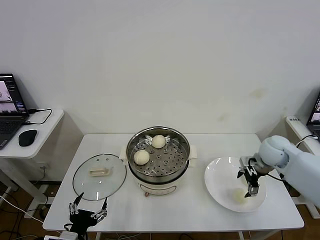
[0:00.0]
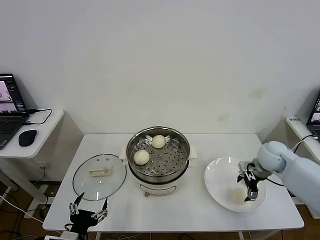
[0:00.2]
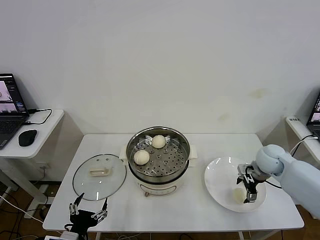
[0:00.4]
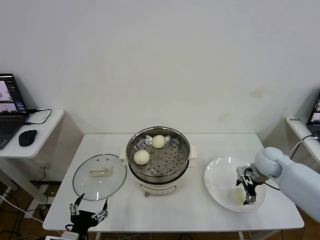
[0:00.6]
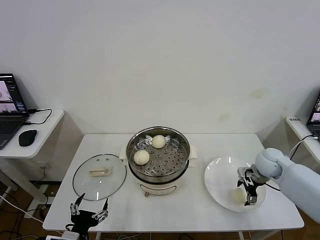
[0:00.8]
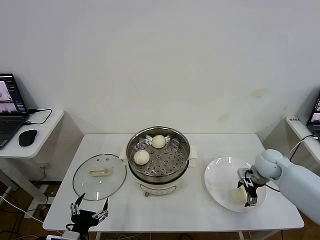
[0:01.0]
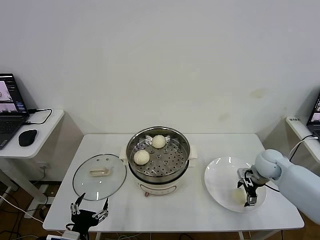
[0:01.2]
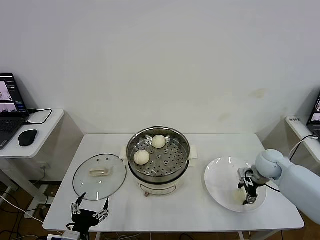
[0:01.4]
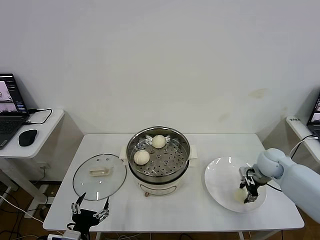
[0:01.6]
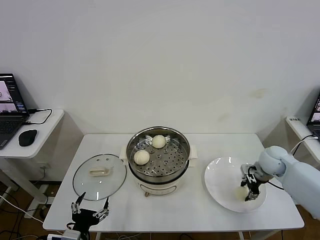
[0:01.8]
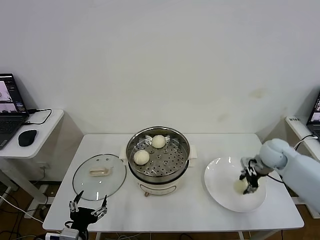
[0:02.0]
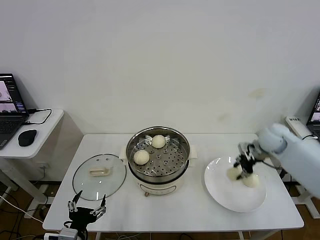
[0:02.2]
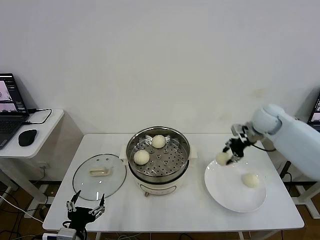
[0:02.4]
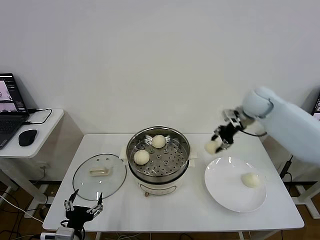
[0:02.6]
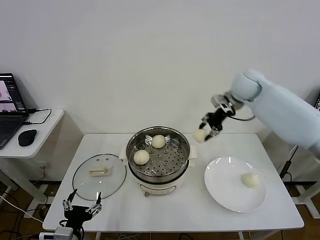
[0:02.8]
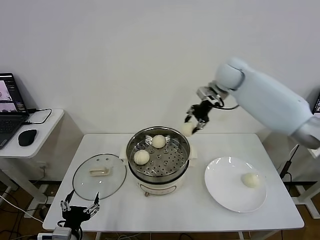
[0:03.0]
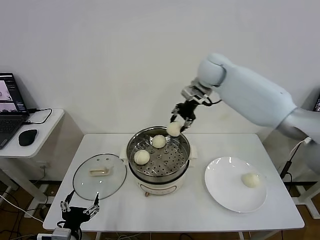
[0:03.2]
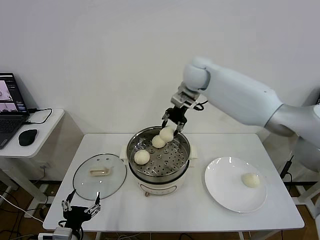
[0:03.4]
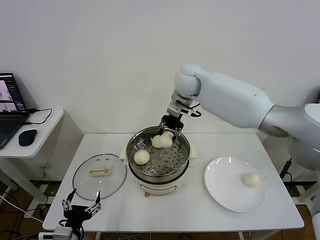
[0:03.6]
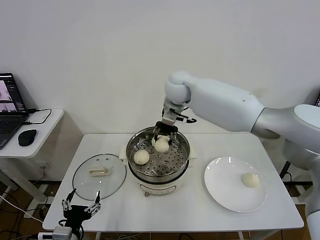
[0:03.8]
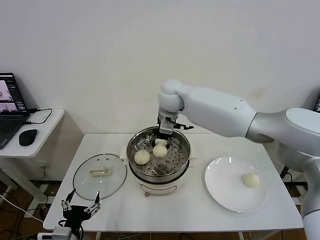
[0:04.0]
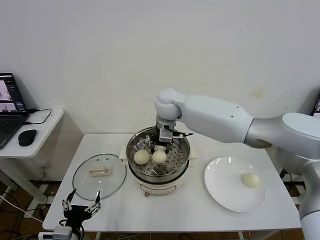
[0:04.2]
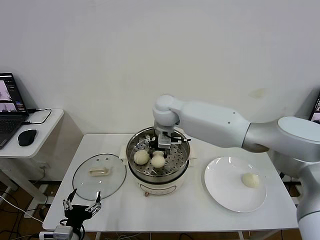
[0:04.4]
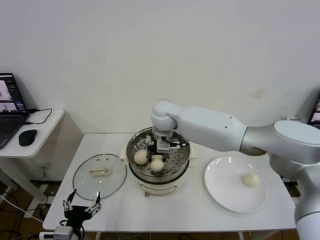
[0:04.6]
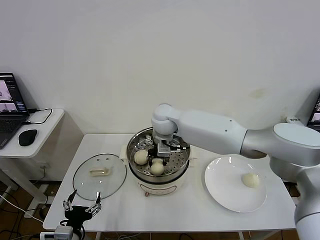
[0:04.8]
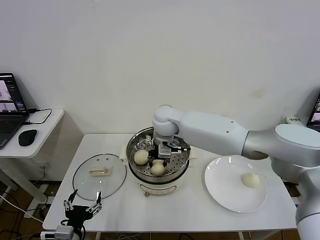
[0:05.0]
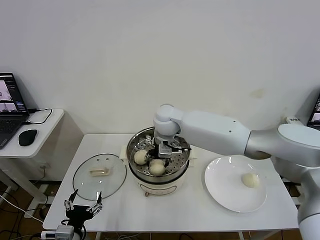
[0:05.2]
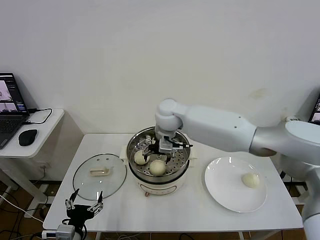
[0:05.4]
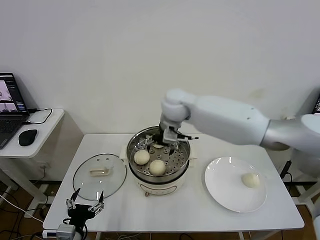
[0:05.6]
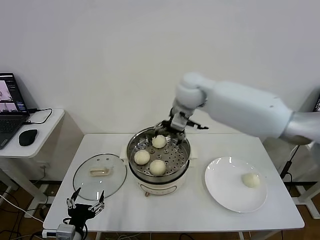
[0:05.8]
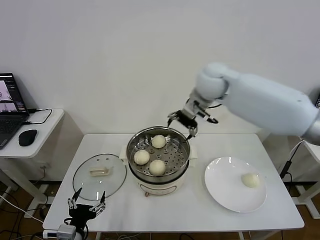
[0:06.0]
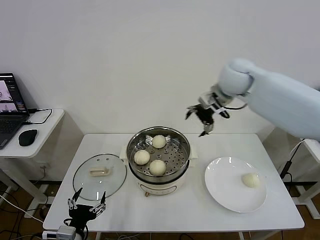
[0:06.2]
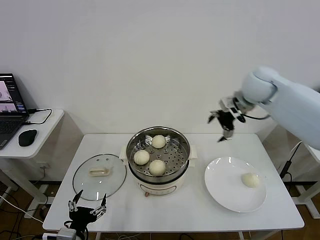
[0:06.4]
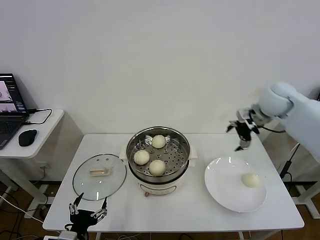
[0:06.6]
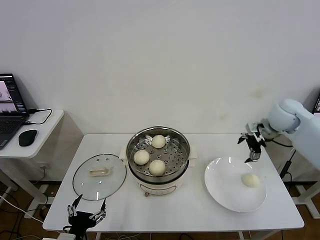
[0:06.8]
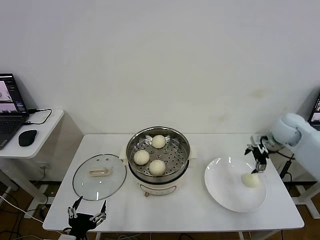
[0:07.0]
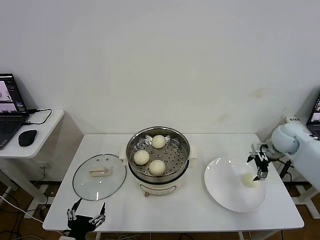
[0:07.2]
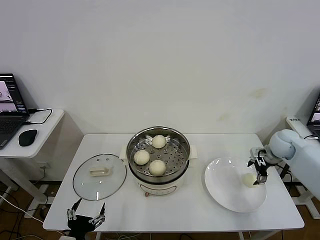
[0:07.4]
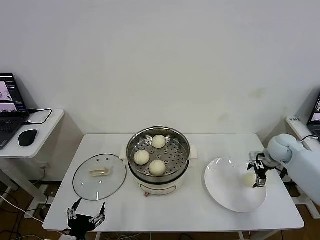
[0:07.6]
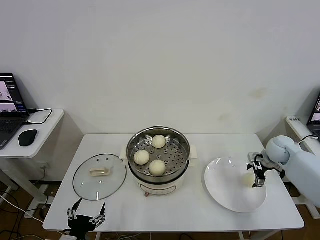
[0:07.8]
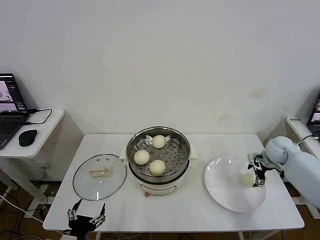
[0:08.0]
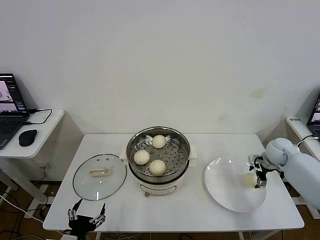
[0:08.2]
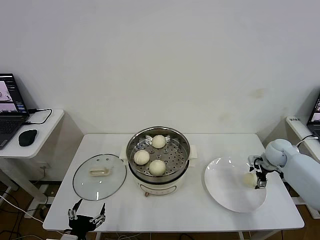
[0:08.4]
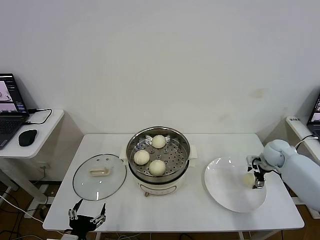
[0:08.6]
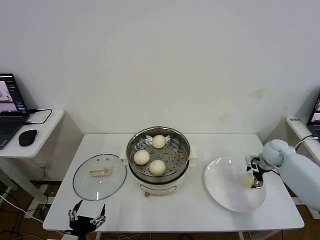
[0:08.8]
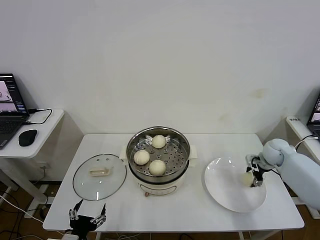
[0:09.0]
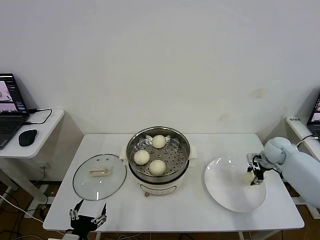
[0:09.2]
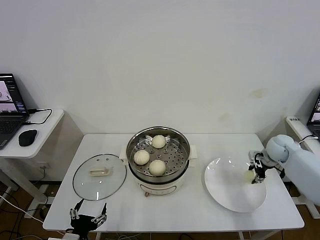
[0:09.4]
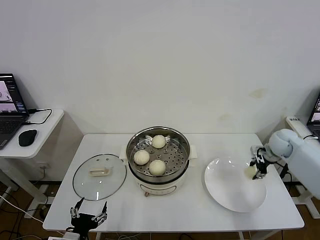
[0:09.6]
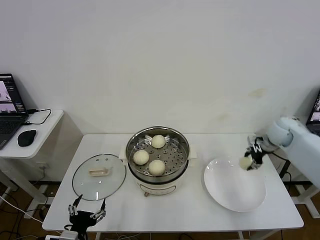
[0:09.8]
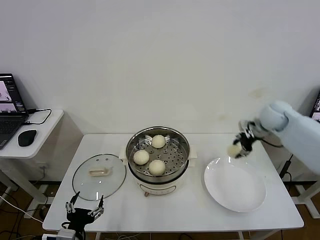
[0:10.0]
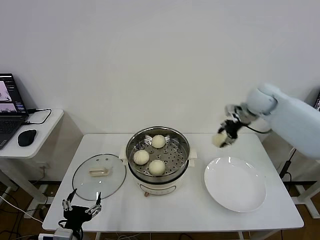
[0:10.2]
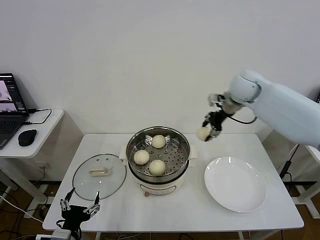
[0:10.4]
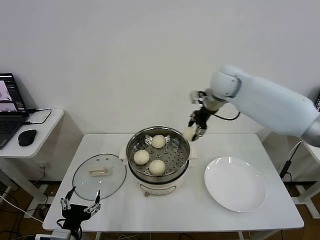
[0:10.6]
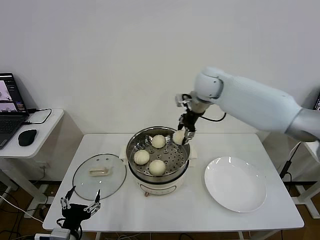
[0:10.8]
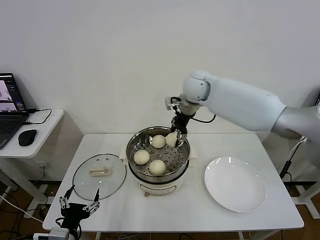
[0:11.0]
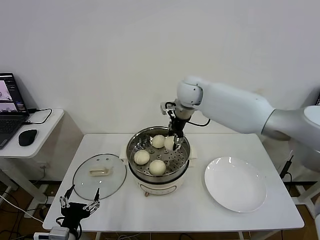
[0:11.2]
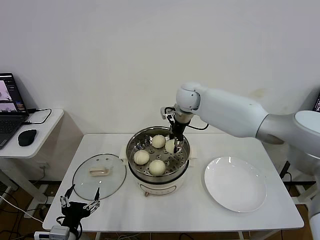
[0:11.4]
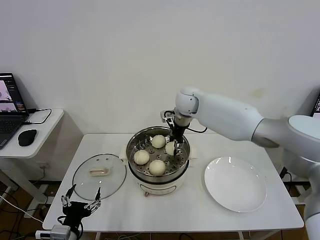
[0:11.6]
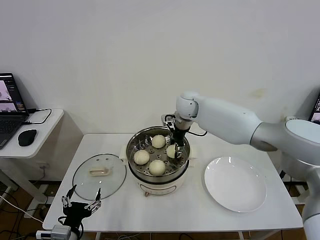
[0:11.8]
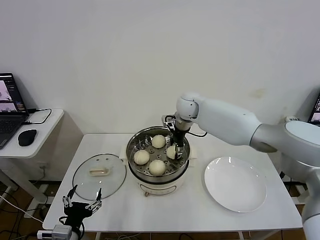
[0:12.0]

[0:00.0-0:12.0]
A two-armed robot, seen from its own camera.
Step, 0:01.8 to 0:05.2: Place the baozi on the steamer with right gripper.
Step, 0:05.4 to 0:09.2: Grasp the baozi in the plate with right gripper.
0:00.0 to 0:01.6: The right gripper closes its fingers.
0:01.6 to 0:03.0: The right gripper moves upward, to the left and forward, some 35 cm.
0:03.0 to 0:04.4: The right gripper heads to the left, downward and backward, covering about 20 cm.
0:04.4 to 0:06.0: The right gripper is displaced to the right and upward by approximately 20 cm, and opens its fingers.
0:06.0 to 0:07.6: The right gripper travels to the right and downward by some 35 cm.
0:07.6 to 0:09.0: The right gripper closes up.
0:09.0 to 0:10.4: The right gripper heads upward and to the left, covering approximately 30 cm.
0:10.4 to 0:12.0: The right gripper travels to the left and downward by some 15 cm, and opens up.

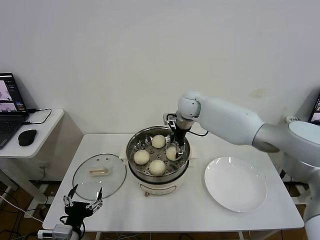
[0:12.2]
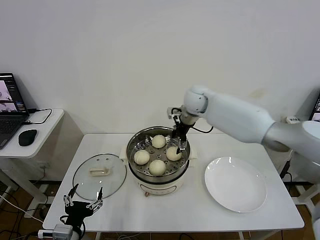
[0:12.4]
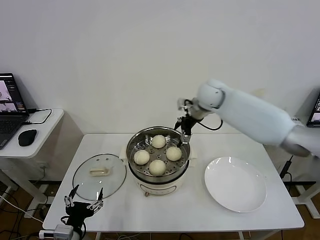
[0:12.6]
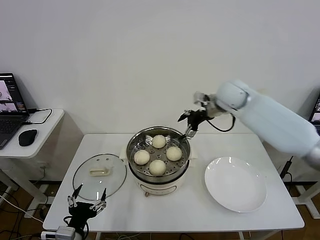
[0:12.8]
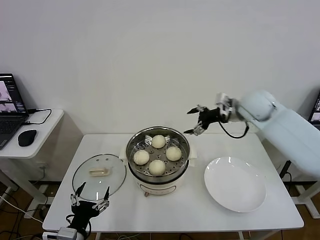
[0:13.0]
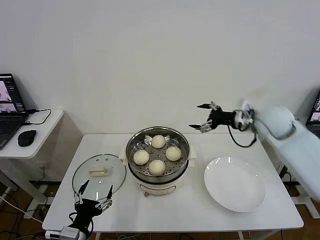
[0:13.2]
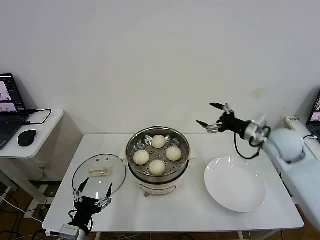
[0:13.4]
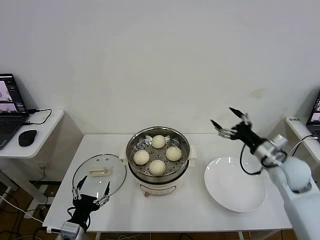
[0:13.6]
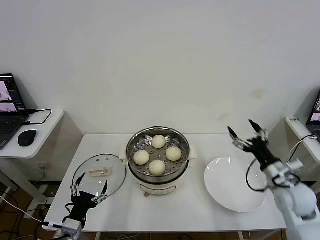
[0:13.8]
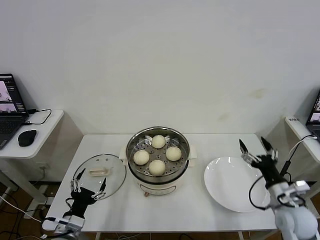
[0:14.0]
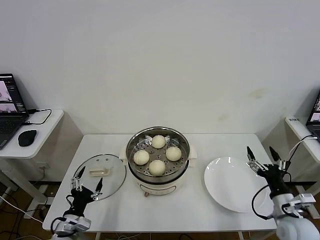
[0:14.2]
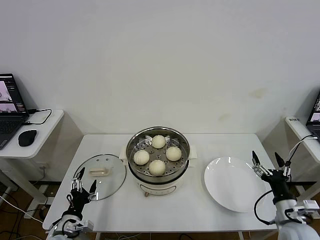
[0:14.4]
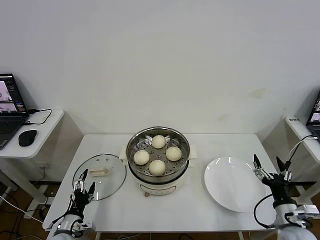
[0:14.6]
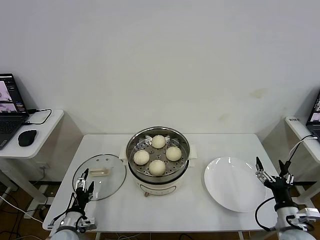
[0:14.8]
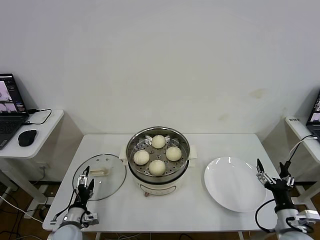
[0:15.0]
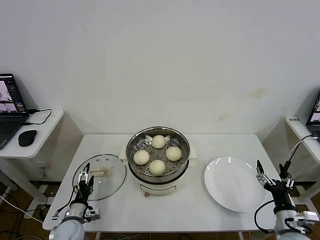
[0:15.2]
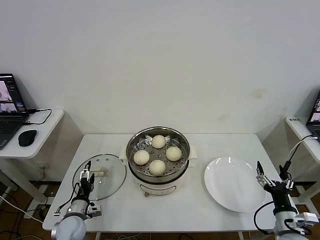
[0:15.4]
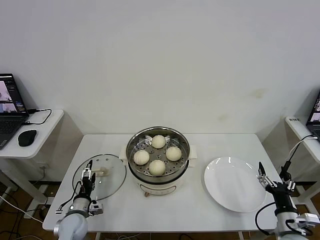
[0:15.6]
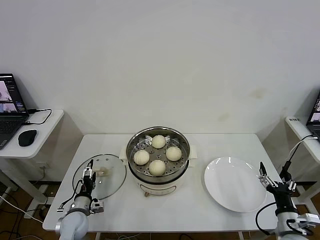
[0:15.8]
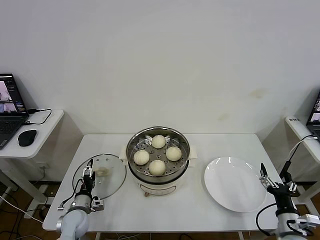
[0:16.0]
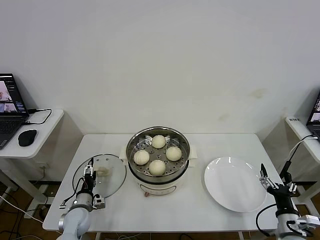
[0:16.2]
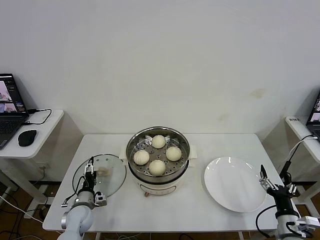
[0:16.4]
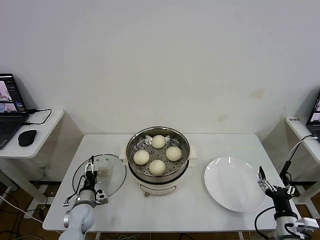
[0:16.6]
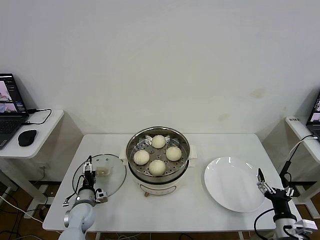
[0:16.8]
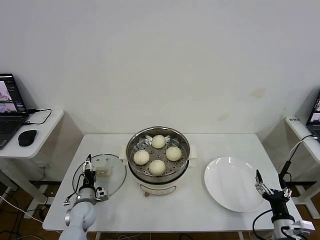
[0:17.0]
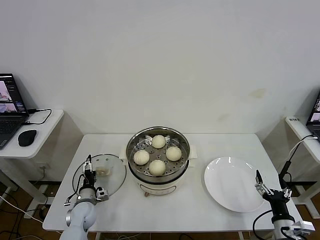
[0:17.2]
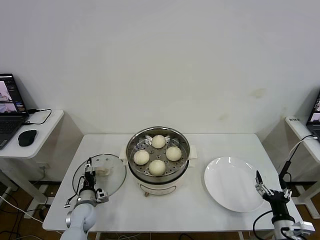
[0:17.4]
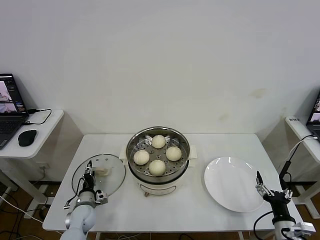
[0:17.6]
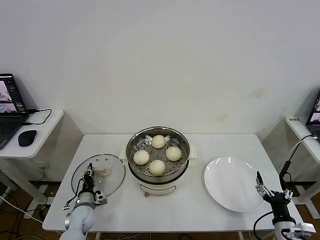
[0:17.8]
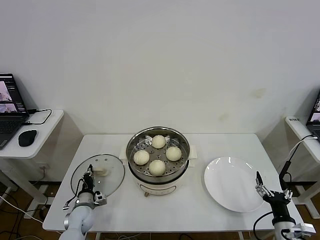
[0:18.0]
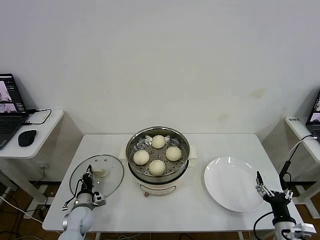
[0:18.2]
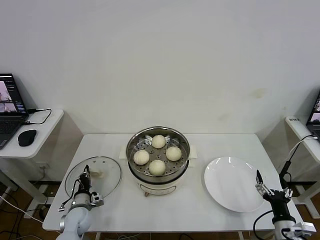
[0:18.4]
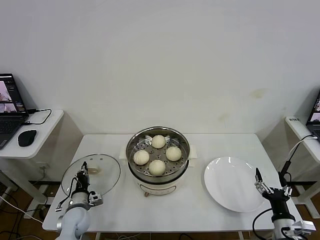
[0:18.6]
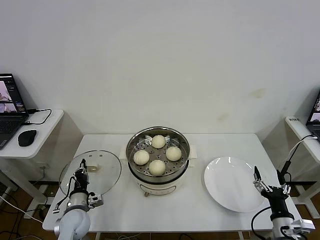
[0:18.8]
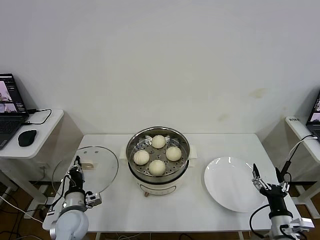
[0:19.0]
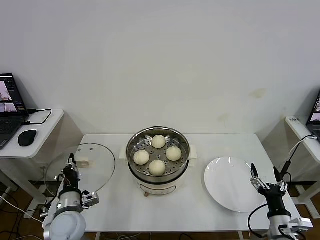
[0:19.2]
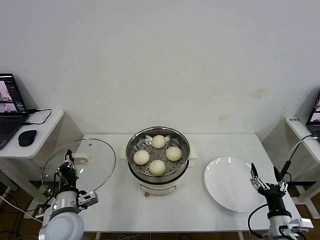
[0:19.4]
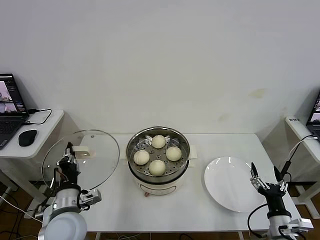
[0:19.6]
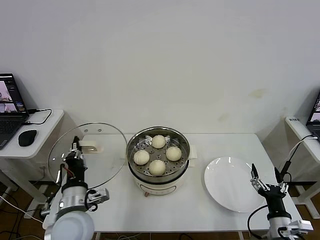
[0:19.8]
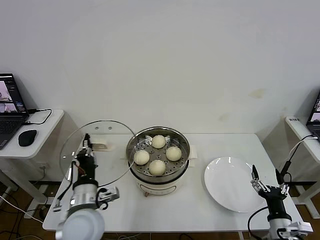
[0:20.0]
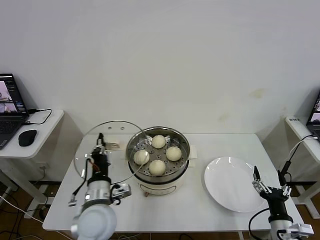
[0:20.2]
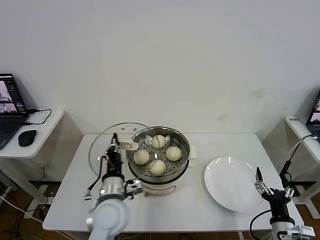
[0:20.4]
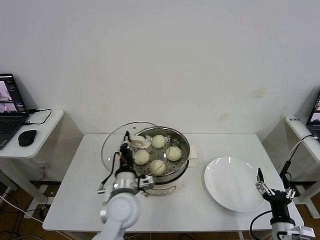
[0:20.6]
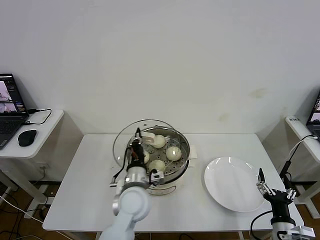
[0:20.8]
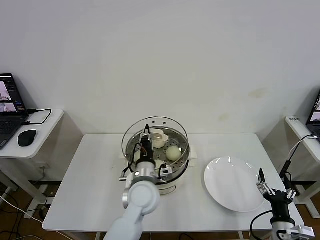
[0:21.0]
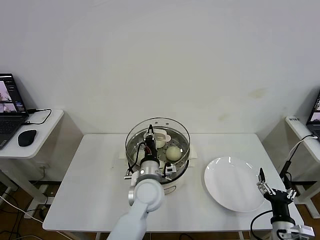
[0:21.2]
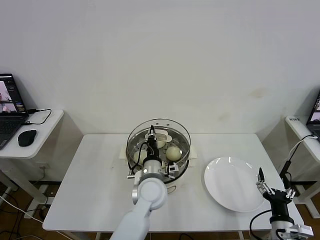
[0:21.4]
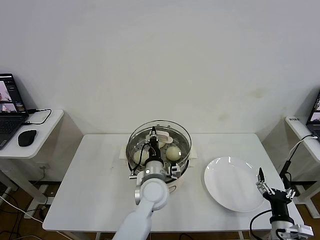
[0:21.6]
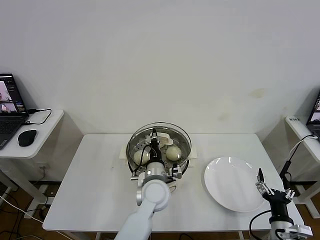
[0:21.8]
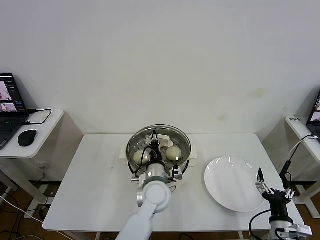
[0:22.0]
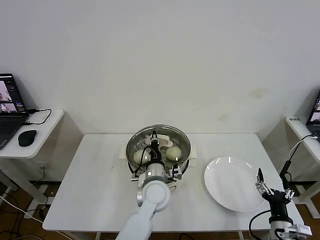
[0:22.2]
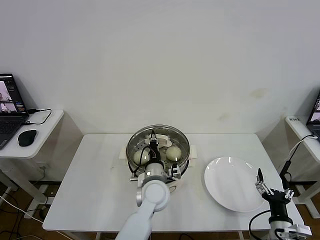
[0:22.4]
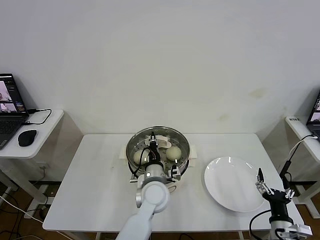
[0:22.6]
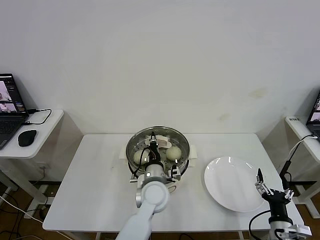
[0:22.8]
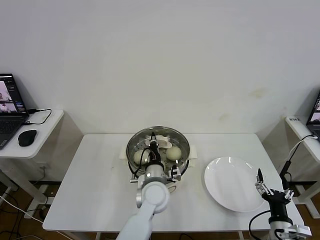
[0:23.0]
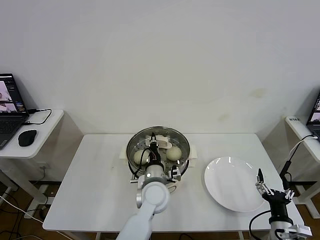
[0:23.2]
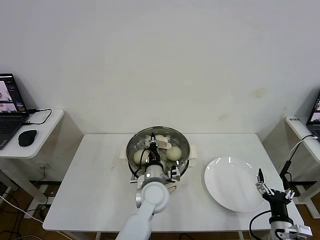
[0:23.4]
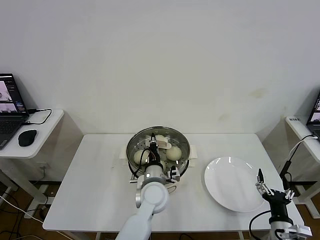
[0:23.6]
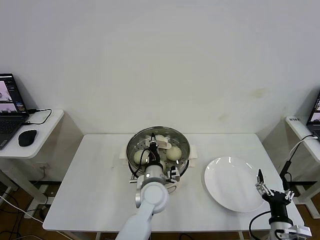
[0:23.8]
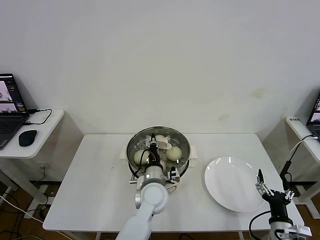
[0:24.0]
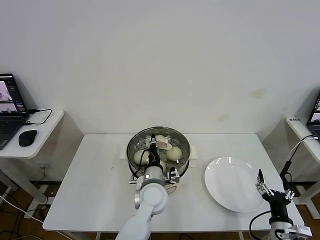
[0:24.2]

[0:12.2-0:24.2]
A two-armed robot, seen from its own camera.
Step, 0:12.4 to 0:18.2: Grasp the pot lid with left gripper.
0:12.2 to 0:13.8: The right gripper is displaced backward, to the right and downward by about 40 cm.
0:13.8 to 0:15.2: The right gripper shifts about 15 cm backward and downward; the left gripper goes about 15 cm downward and forward.
0:15.2 to 0:16.6: The left gripper travels forward by approximately 5 cm.
0:16.6 to 0:18.2: The left gripper closes.
0:18.2 to 0:19.8: The left gripper goes roughly 25 cm upward and backward.
0:19.8 to 0:21.2: The left gripper is displaced to the right and forward by some 20 cm.
0:21.2 to 0:22.6: The grippers stay close to where they were, moving slightly.
0:22.6 to 0:24.2: The two grippers keep their place.
